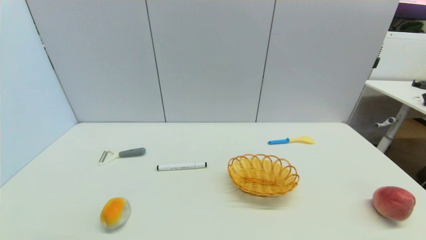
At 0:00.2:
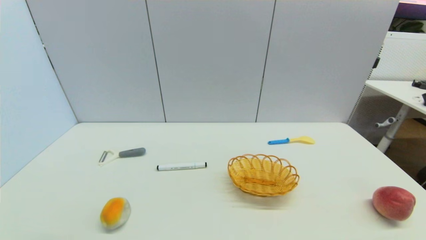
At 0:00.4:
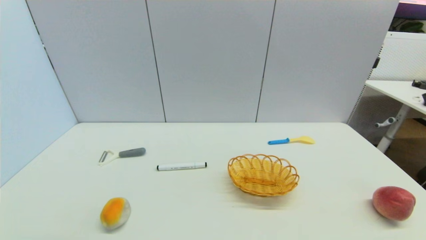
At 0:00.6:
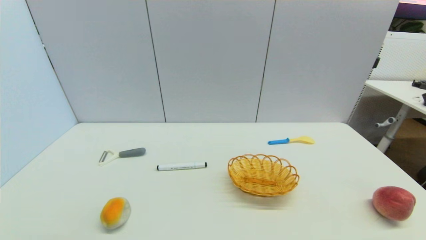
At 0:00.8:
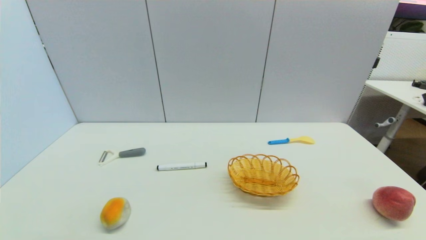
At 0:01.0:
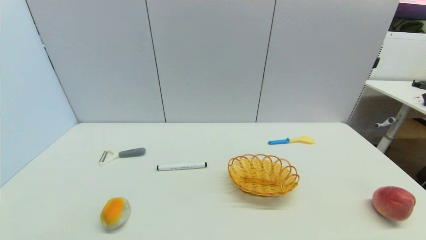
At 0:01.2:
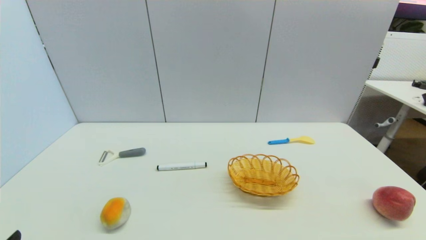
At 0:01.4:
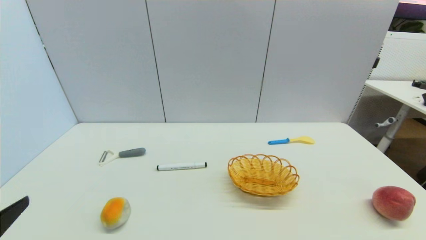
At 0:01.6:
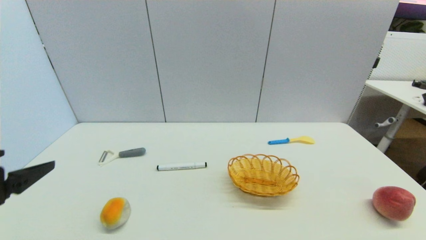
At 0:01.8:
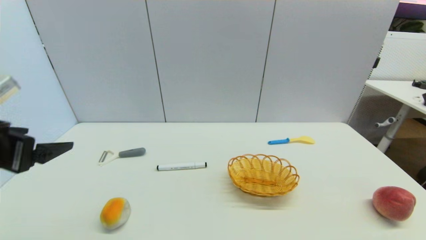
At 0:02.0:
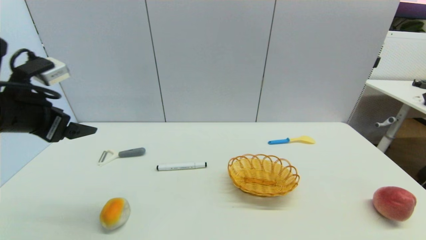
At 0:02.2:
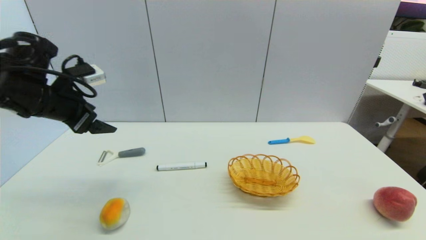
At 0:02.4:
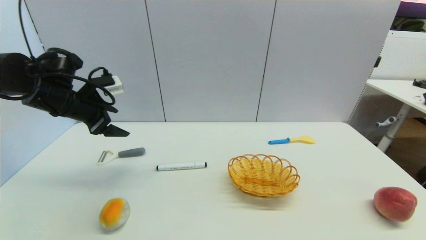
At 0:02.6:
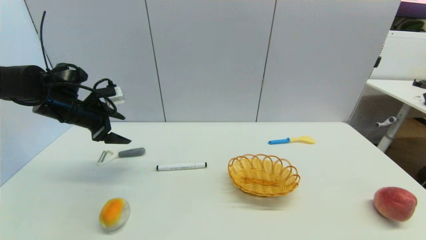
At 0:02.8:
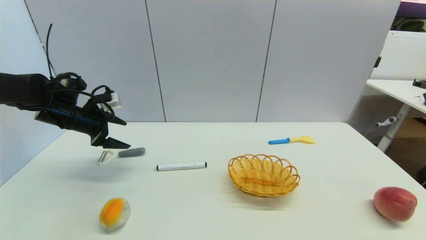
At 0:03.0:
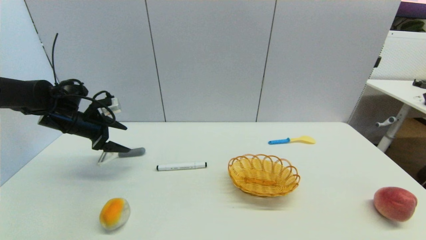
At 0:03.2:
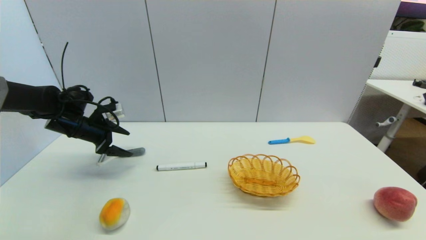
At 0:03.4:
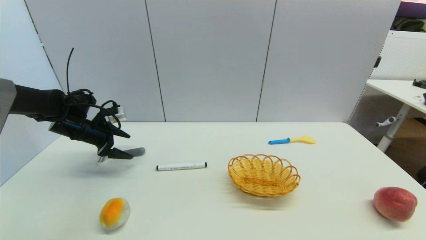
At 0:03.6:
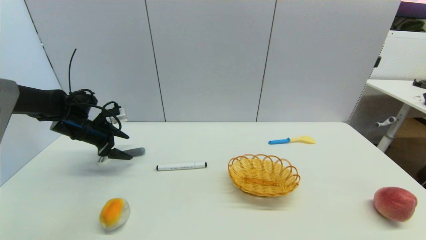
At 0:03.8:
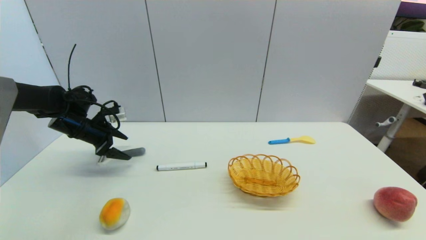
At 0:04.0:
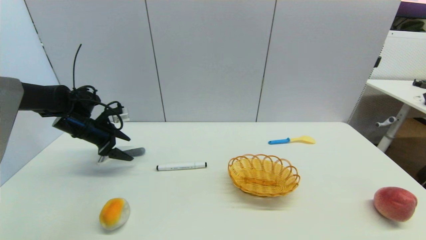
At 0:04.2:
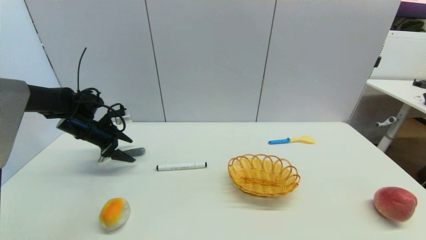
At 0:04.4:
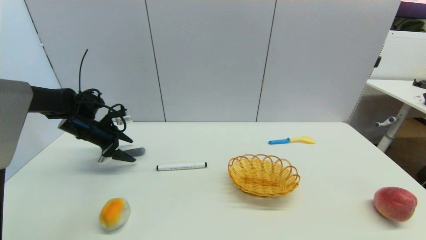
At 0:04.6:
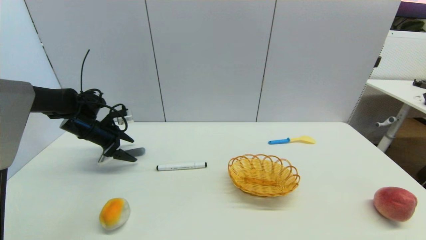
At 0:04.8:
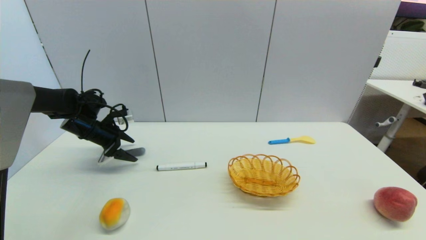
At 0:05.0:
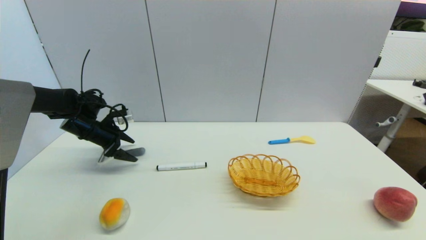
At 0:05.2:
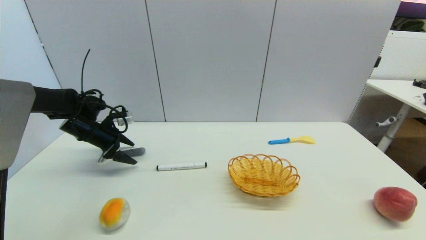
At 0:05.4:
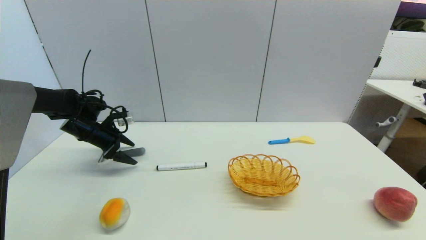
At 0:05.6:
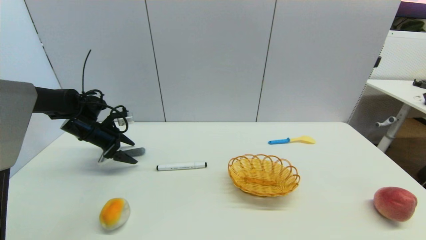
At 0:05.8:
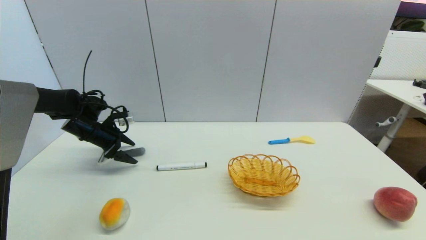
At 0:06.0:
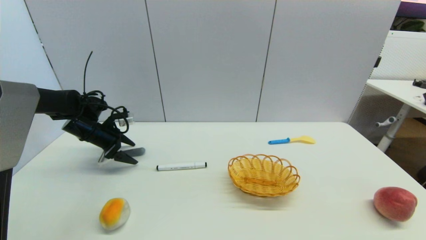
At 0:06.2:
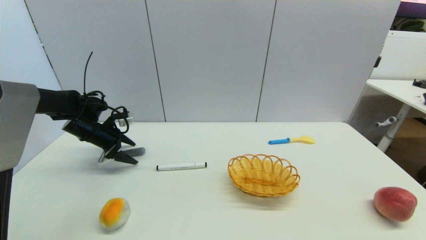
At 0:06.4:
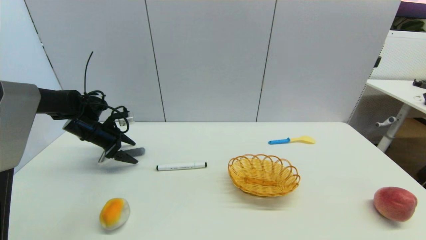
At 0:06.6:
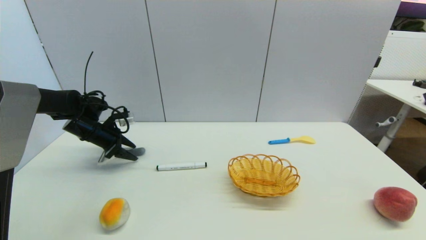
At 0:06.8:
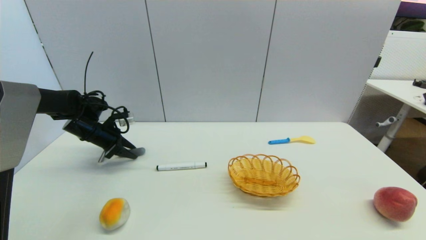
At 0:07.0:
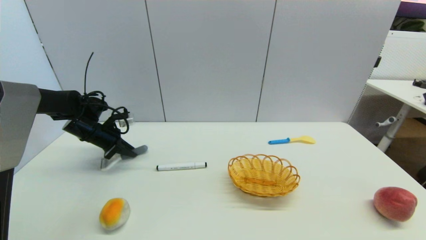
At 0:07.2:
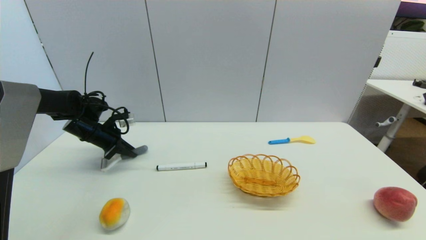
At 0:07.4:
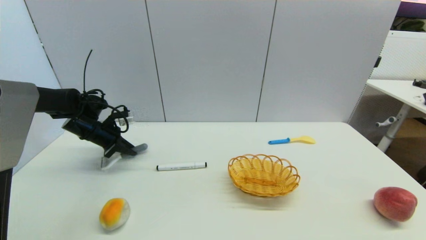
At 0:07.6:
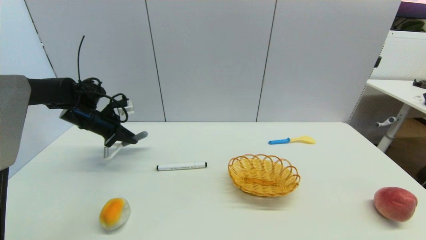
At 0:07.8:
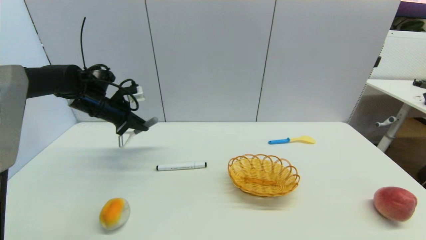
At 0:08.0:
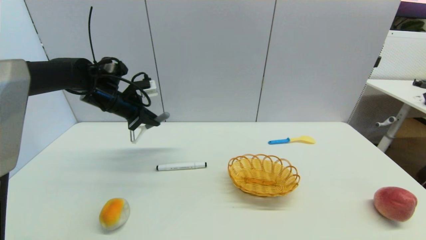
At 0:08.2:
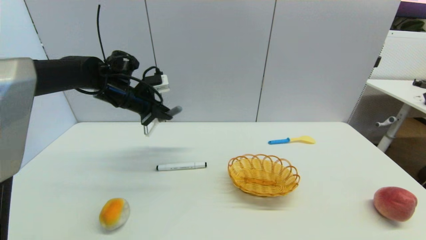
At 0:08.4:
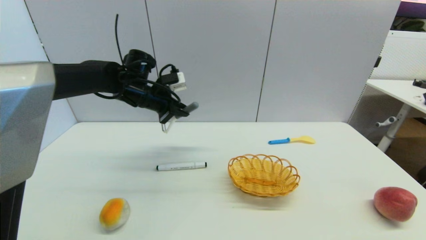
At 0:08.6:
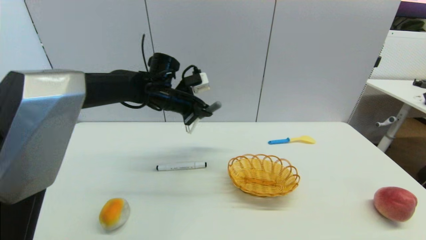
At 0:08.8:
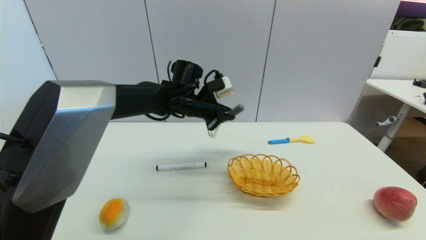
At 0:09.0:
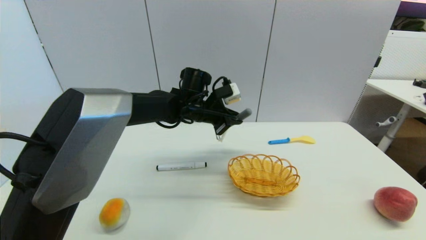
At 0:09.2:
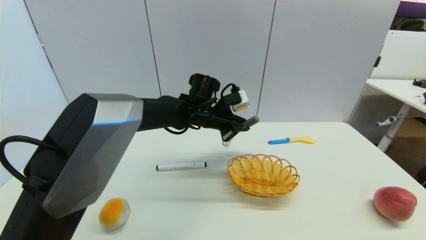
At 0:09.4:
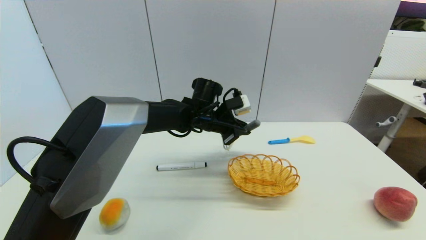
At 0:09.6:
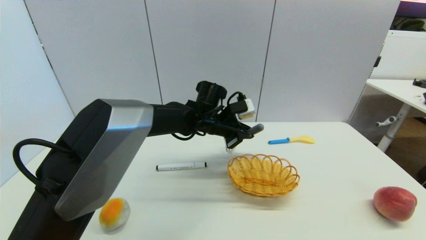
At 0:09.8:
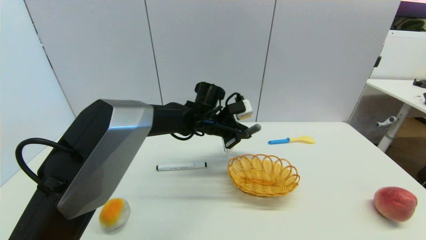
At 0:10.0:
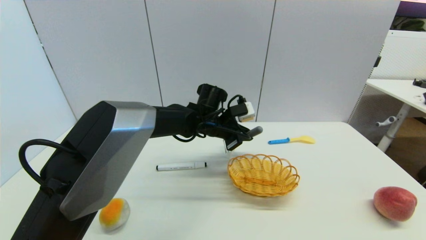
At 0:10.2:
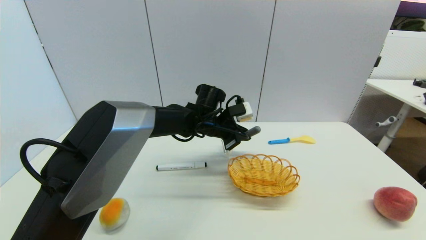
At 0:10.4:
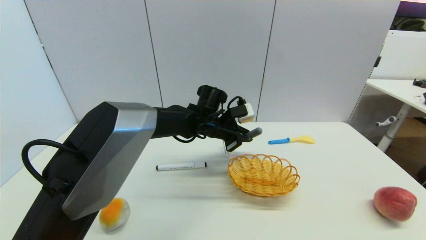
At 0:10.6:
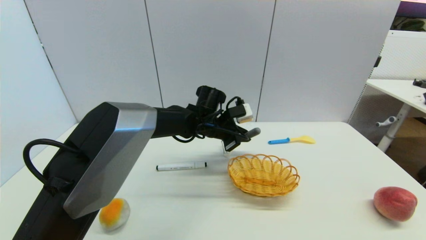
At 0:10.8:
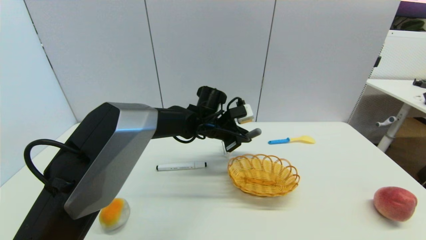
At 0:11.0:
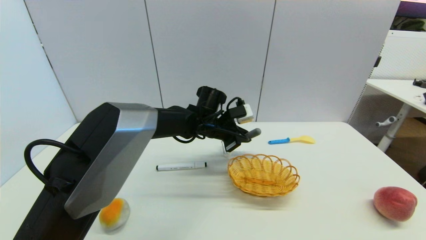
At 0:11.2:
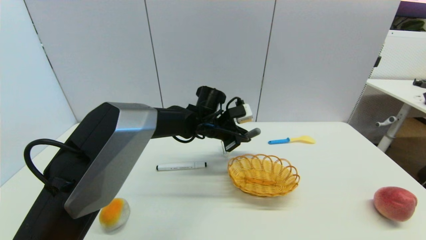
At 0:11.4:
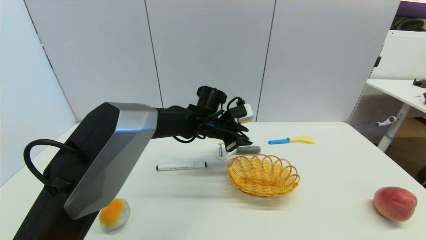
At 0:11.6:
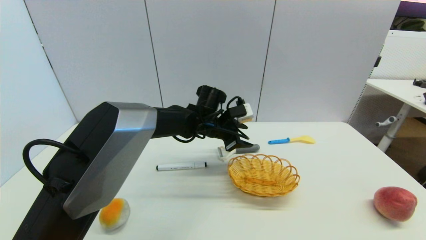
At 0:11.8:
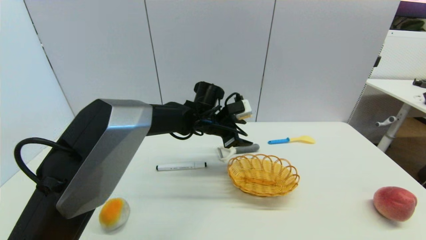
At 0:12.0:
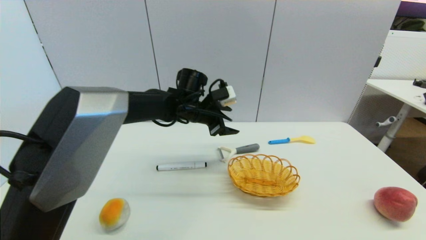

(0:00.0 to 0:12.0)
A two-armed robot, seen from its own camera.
Step, 0:01.4 - 0:07.4: Grasp the peeler with left gripper.
Step, 0:07.8 - 0:11.6: Place the peeler on the table with left gripper.
0:00.0 - 0:01.6: The left gripper heads upward and forward, covering approximately 20 cm.
0:01.6 - 0:03.0: The left gripper moves forward, about 30 cm.
0:03.0 - 0:04.4: The grippers stay close to where they were, moving slightly.
0:04.4 - 0:06.0: The two grippers keep their place.
0:06.0 - 0:07.6: The left gripper changes place by roughly 5 cm, and closes its fingers.
0:07.6 - 0:09.0: The left gripper travels to the right by approximately 30 cm.
0:09.0 - 0:10.4: The grippers move only a little.
0:10.4 - 0:12.0: The left gripper is displaced to the left and upward by approximately 5 cm, and opens its fingers.

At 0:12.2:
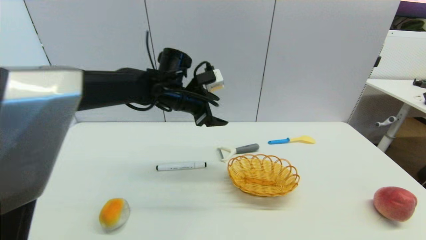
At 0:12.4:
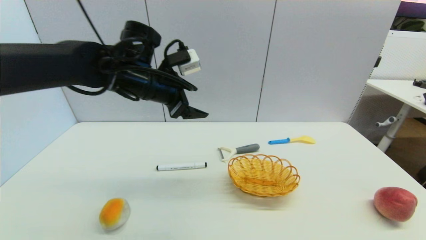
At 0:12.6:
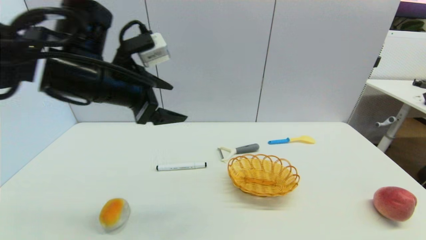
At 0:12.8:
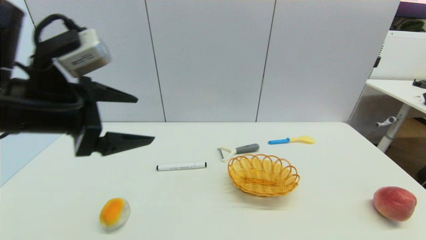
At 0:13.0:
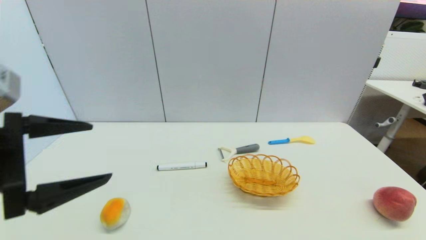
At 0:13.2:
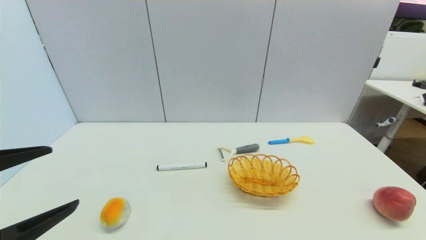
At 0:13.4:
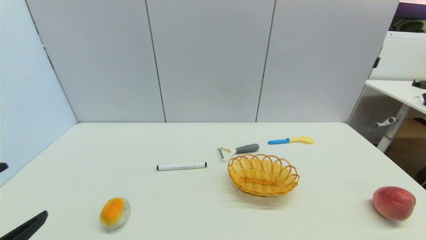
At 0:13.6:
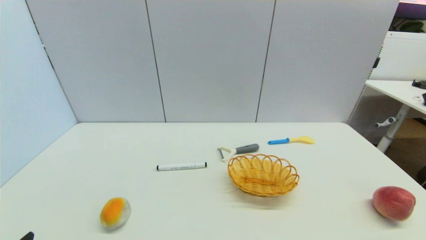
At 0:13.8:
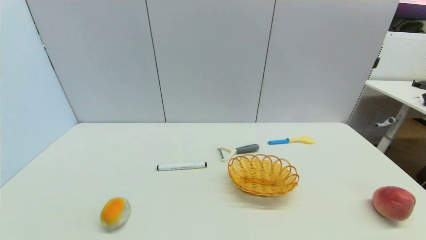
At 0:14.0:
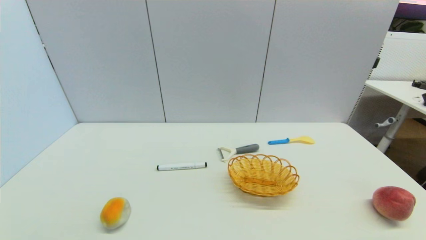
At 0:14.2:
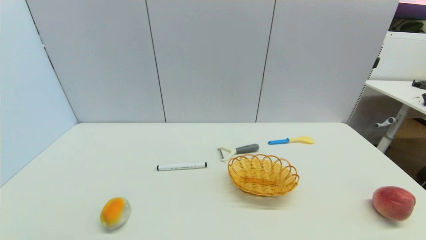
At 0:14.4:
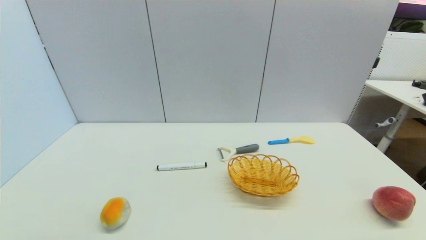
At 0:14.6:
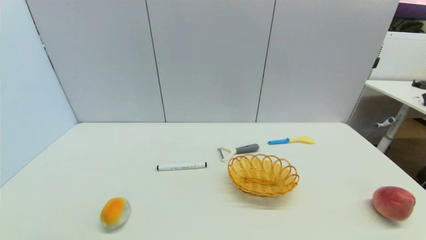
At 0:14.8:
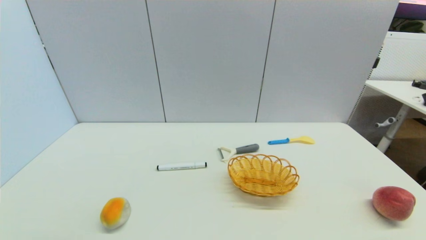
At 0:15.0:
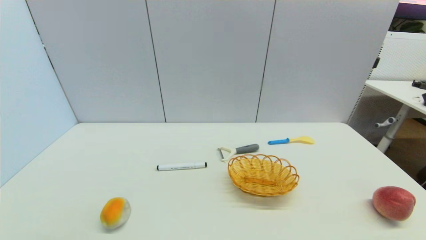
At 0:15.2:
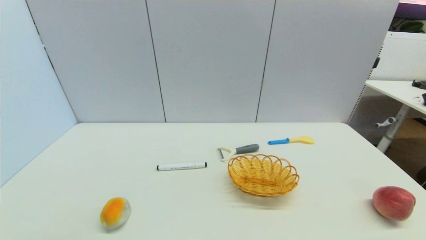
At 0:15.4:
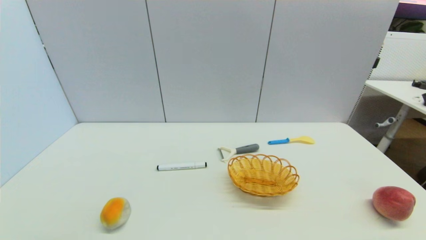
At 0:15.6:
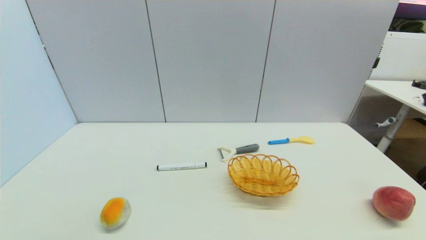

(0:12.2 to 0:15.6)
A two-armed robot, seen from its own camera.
0:12.2 - 0:13.8: The left gripper travels backward and to the left by about 50 cm.
